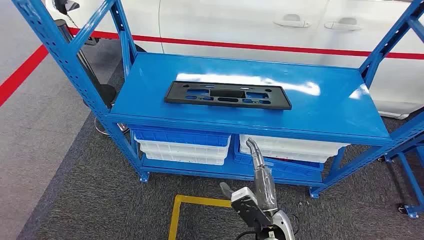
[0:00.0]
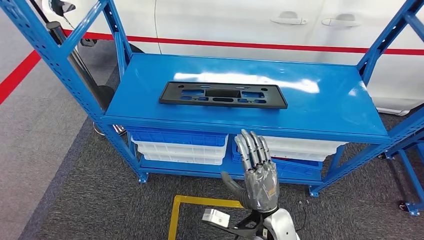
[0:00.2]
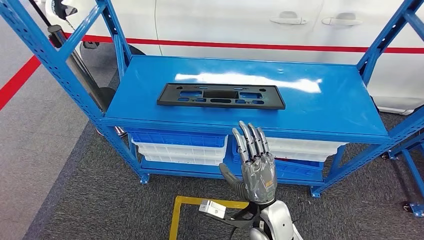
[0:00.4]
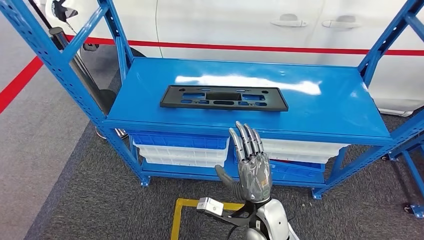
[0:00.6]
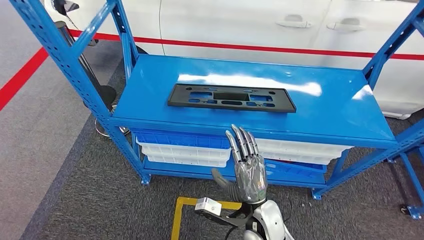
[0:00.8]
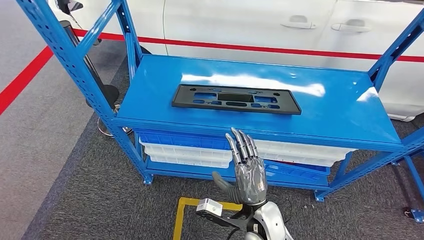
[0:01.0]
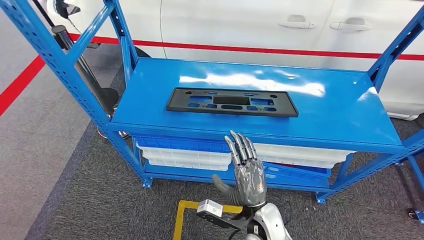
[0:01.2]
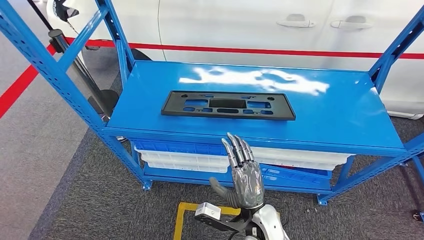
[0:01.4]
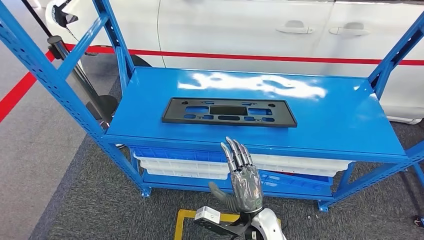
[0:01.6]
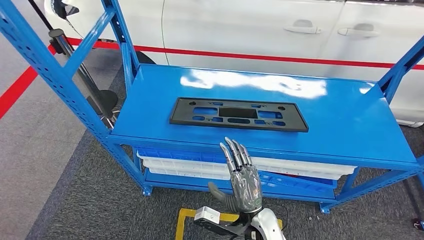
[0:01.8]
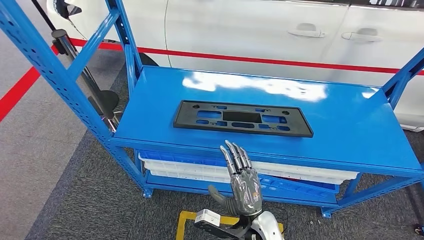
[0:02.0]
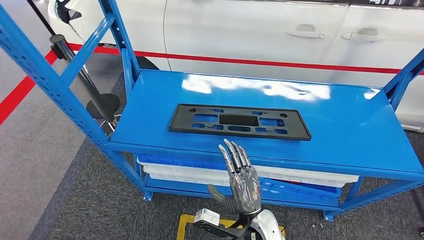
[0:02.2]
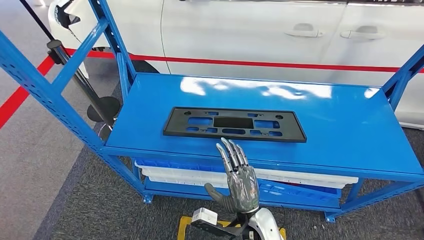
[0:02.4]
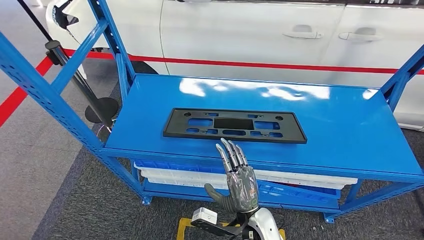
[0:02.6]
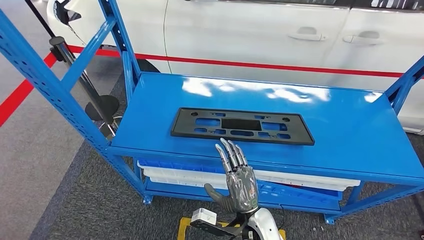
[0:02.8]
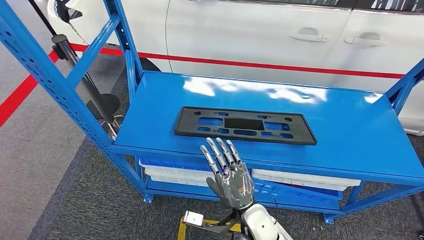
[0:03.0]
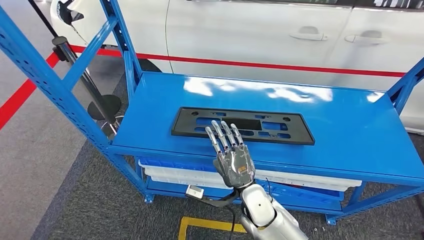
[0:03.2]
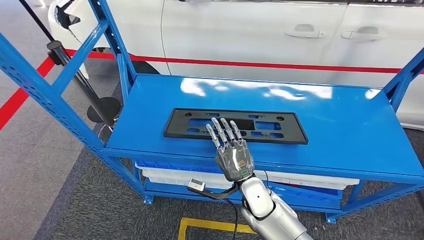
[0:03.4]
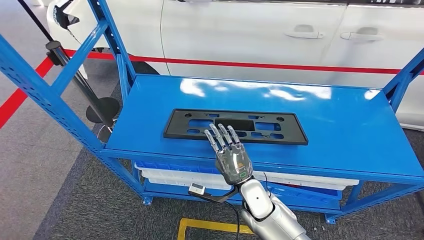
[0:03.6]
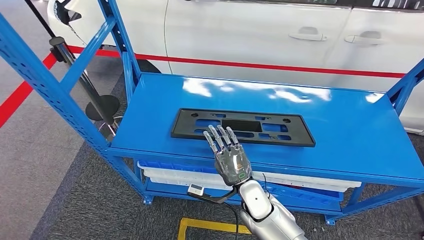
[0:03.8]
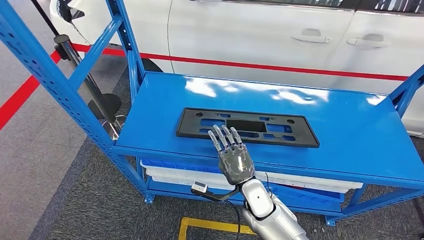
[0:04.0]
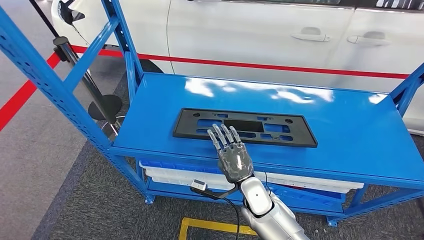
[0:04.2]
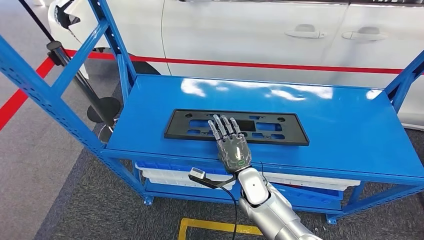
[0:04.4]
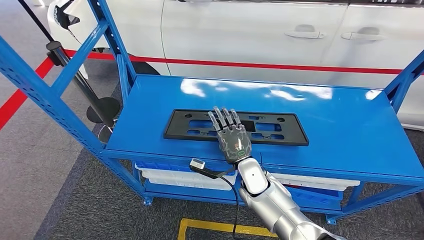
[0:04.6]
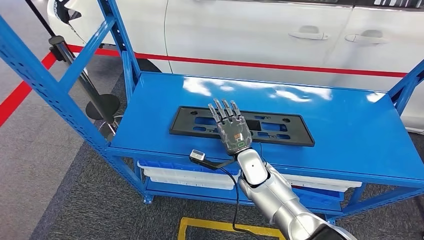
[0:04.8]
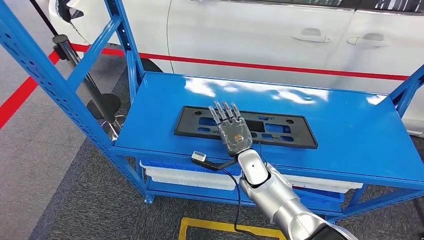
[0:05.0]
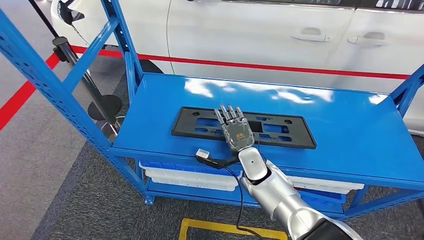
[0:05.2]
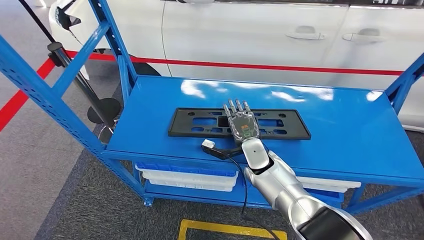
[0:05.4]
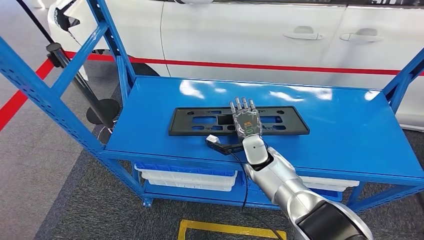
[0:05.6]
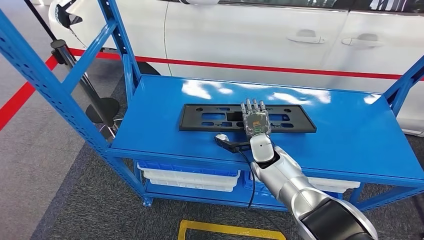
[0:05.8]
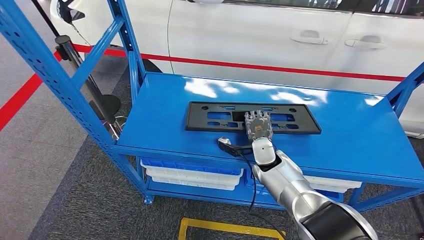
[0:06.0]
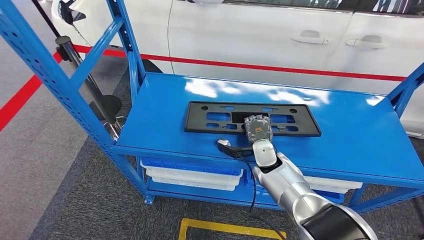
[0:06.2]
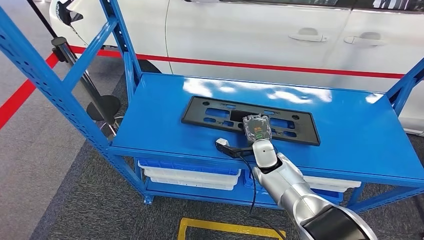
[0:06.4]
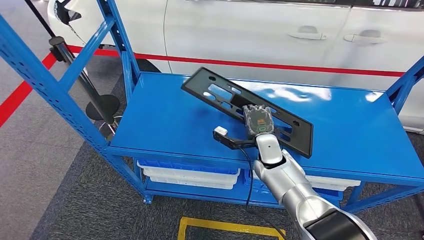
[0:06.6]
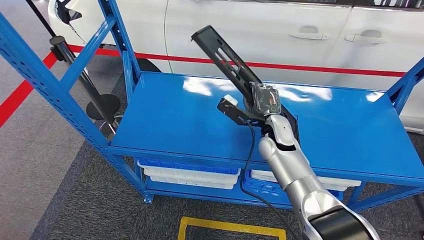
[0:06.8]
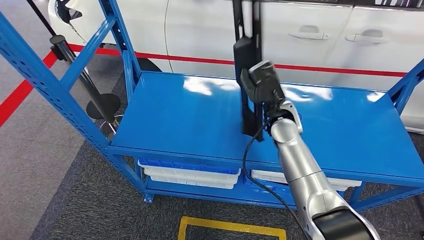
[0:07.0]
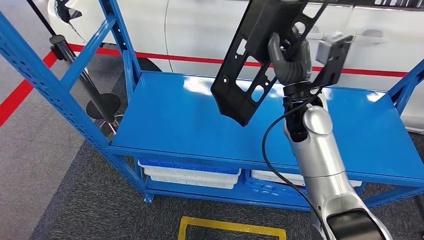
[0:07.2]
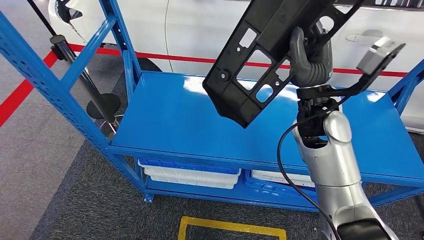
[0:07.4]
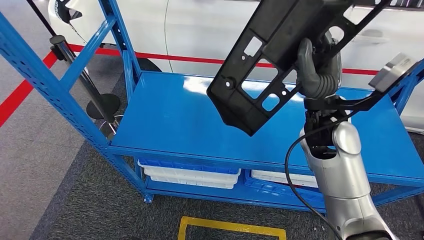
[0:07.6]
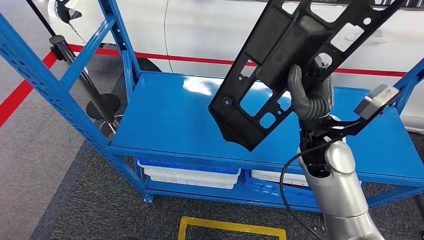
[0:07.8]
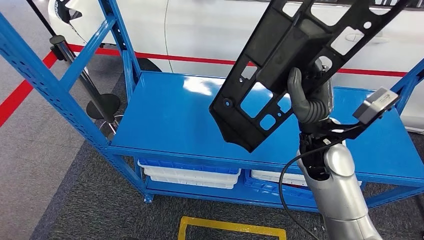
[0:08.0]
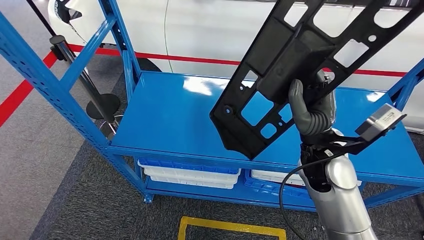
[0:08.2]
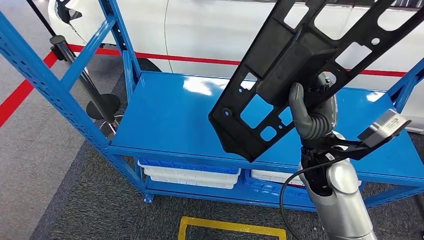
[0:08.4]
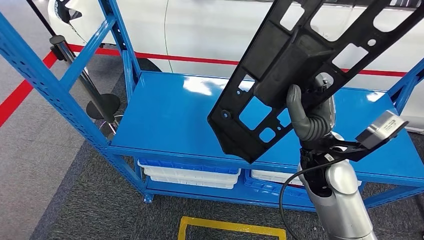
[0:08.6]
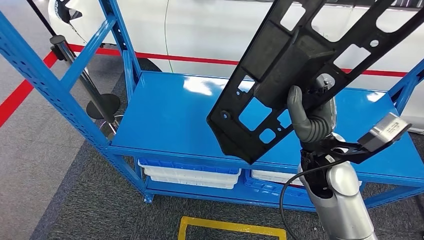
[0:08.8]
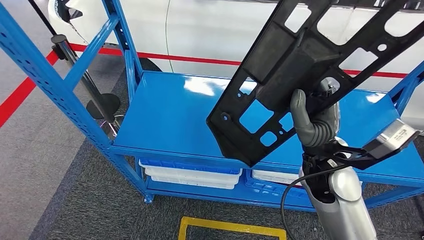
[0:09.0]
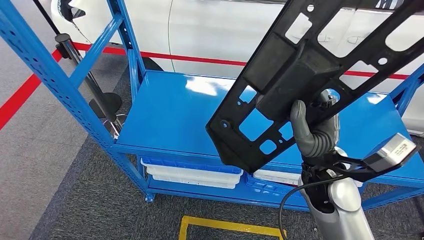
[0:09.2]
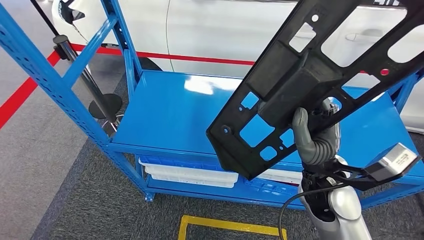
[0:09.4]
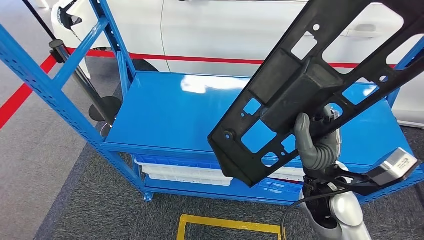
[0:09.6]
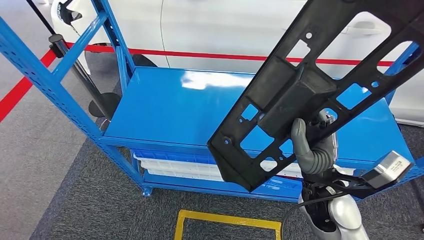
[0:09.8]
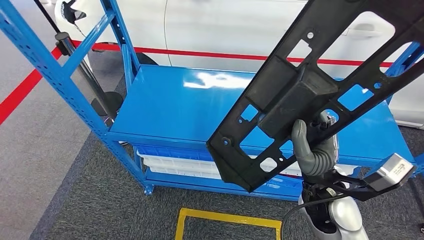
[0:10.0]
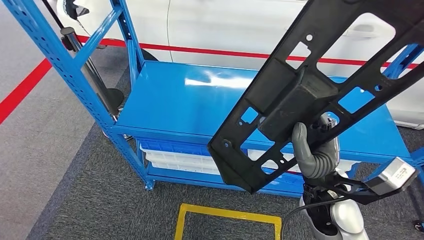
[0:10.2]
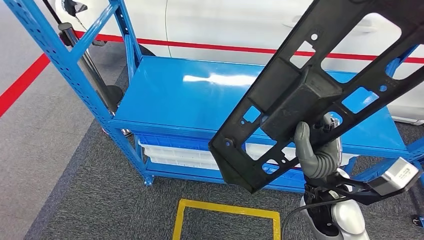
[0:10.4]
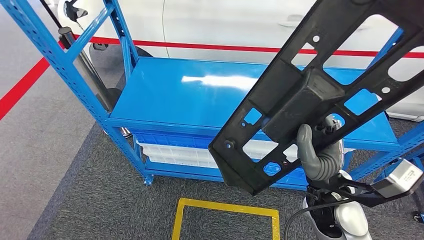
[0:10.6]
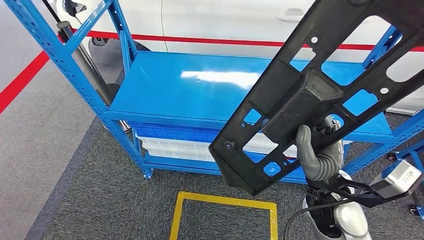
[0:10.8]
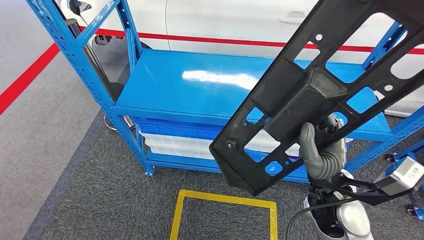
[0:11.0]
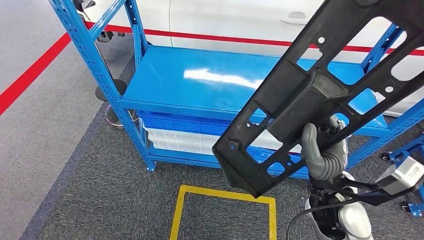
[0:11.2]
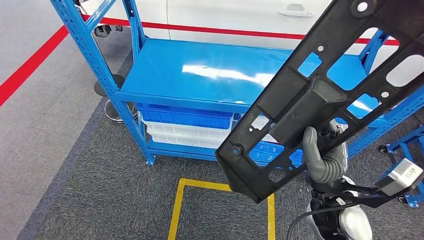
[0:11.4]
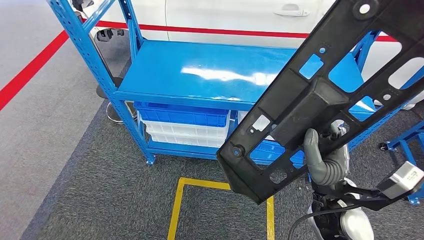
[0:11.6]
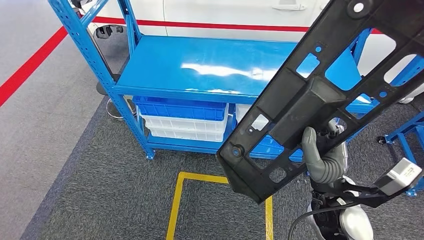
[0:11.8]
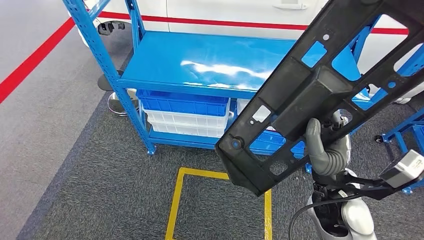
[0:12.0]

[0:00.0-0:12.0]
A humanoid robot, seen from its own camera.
Step, 0:00.0 to 0:11.2: Pick up the large material from the shelf.

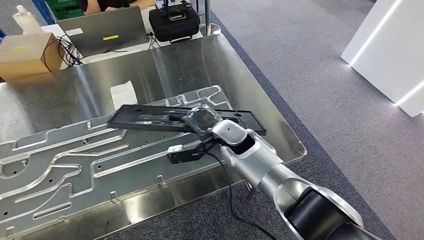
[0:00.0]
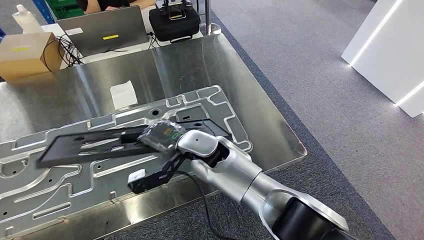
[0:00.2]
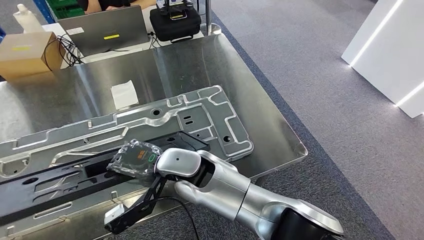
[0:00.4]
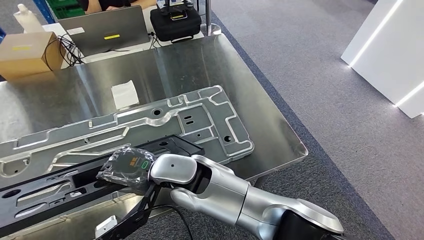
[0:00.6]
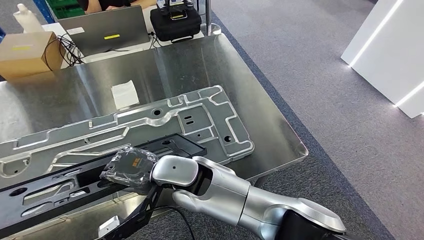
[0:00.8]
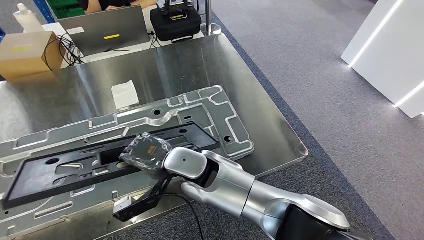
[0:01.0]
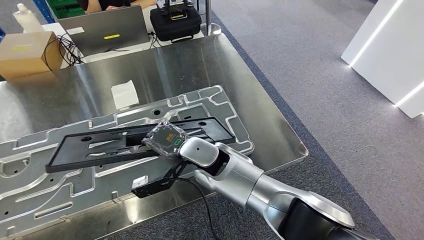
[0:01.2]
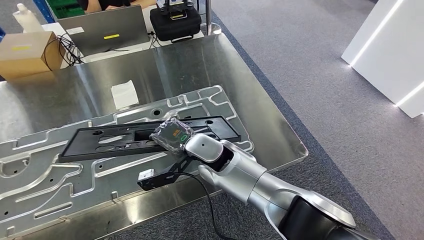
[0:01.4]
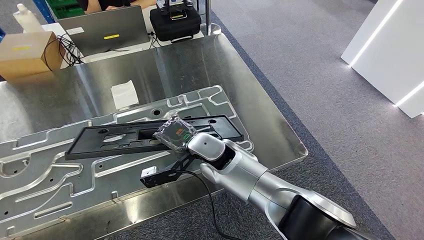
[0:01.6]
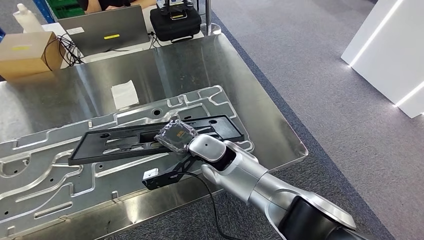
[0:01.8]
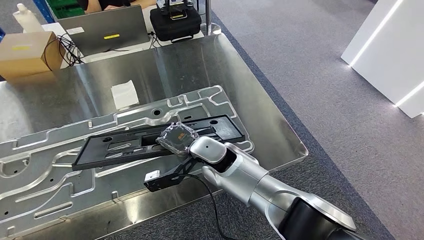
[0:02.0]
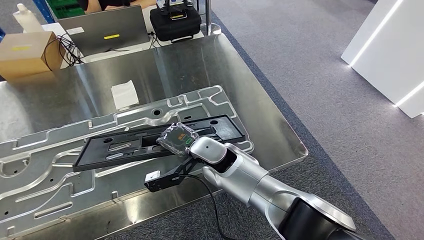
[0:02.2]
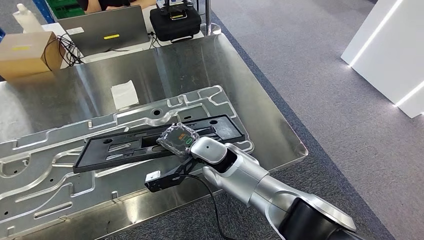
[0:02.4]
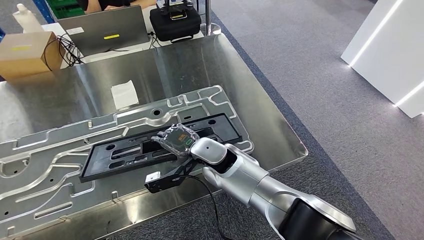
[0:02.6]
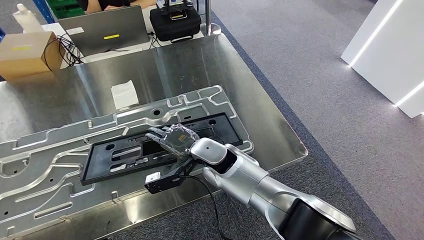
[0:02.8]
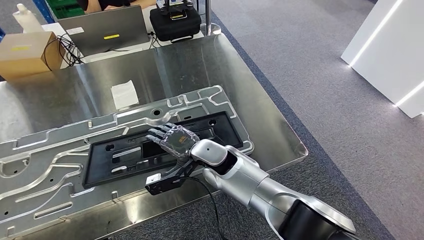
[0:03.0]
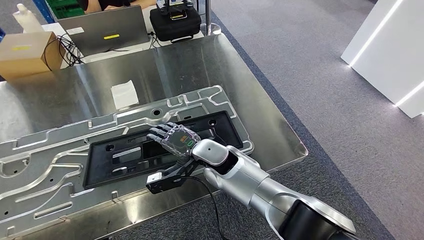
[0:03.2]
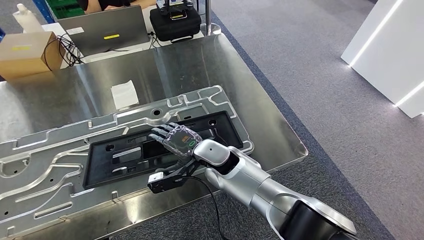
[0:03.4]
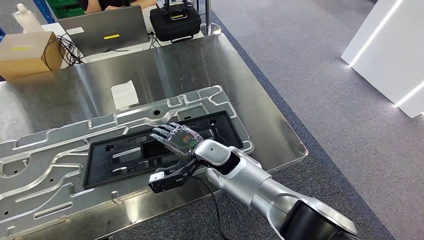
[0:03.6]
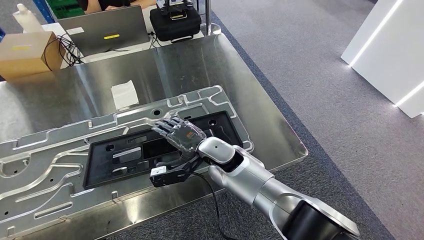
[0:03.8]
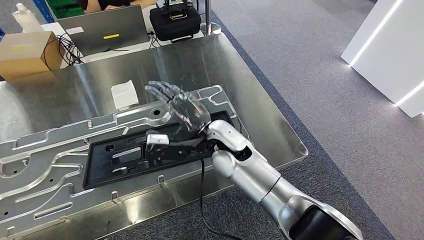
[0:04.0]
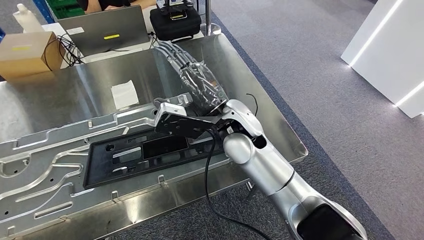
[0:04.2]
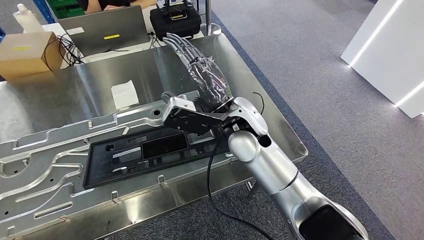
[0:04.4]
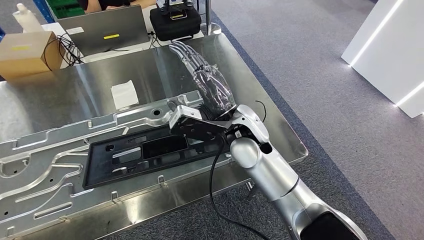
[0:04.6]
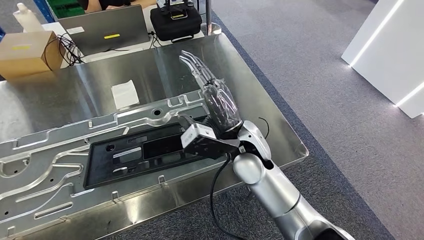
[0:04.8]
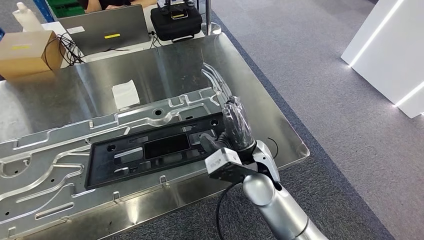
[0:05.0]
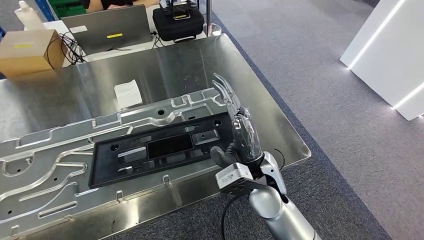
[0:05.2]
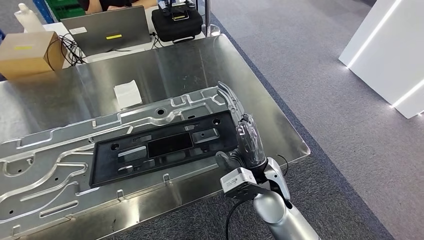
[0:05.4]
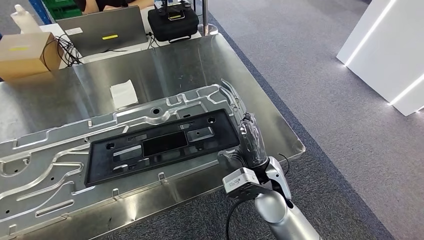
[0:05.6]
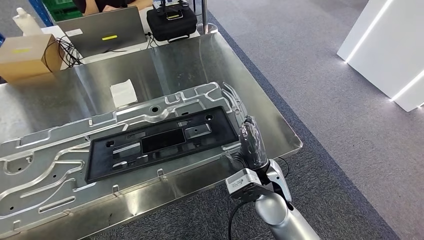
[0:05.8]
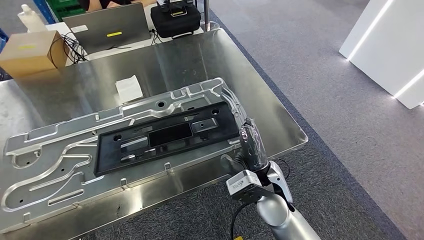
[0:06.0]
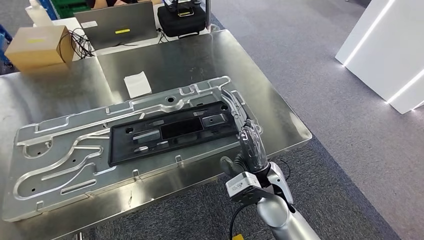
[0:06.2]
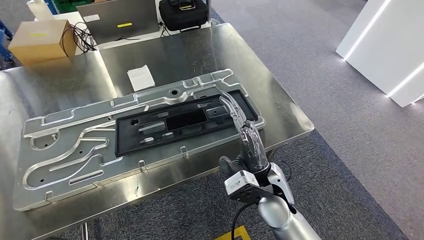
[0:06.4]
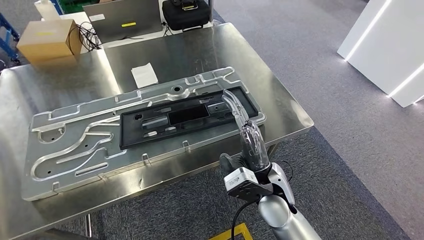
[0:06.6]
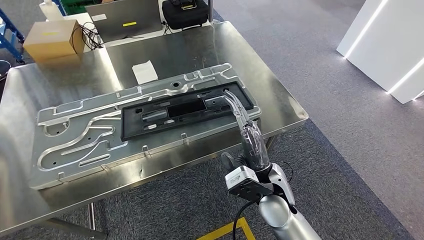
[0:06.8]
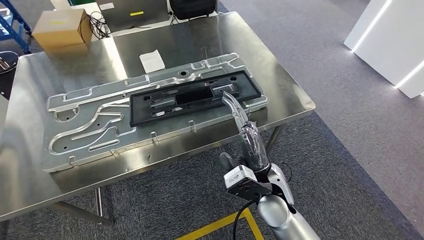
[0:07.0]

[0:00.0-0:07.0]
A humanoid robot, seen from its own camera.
0:00.0 to 0:01.4: The right hand travels to the left and backward by roughly 10 cm.
0:01.4 to 0:02.8: The hands stay close to where they were, moving slightly.
0:02.8 to 0:04.2: The right hand is displaced upward by about 10 cm.
